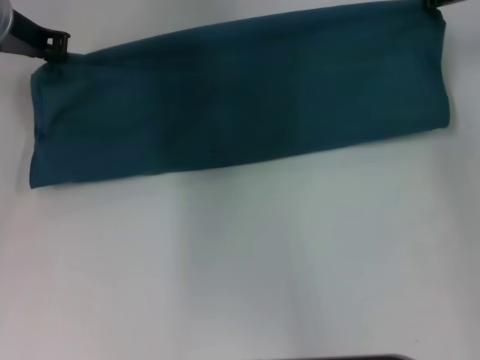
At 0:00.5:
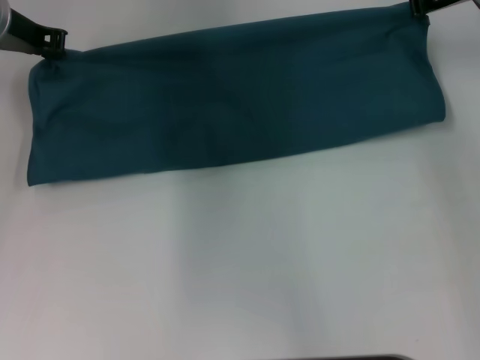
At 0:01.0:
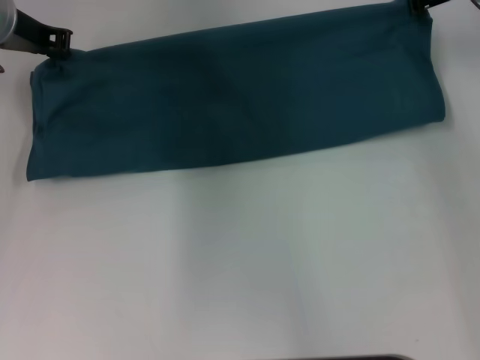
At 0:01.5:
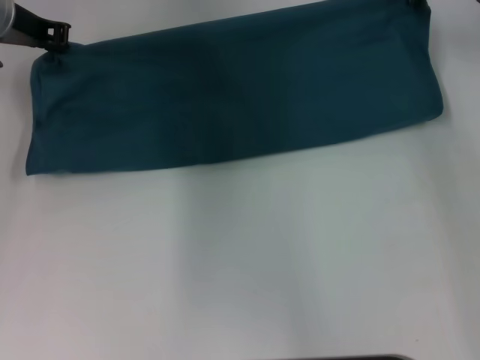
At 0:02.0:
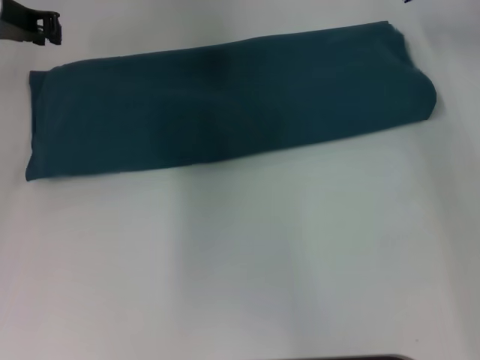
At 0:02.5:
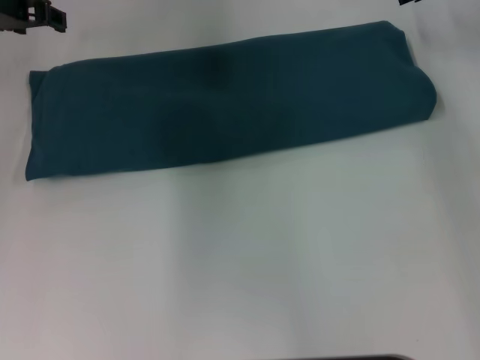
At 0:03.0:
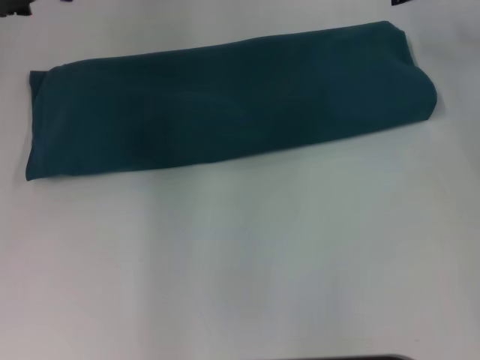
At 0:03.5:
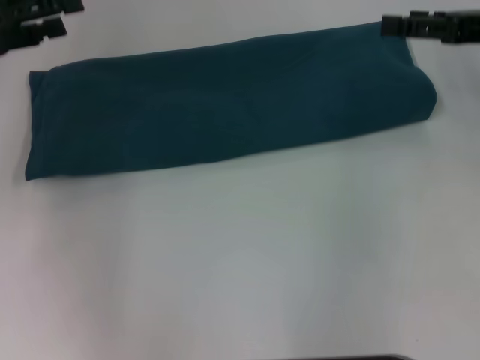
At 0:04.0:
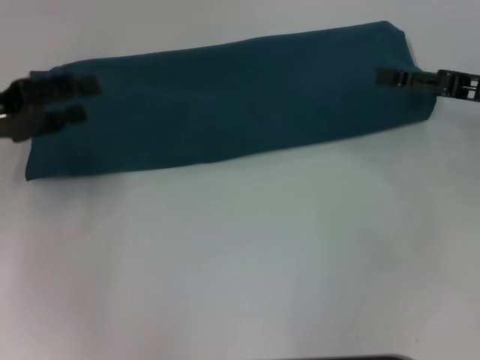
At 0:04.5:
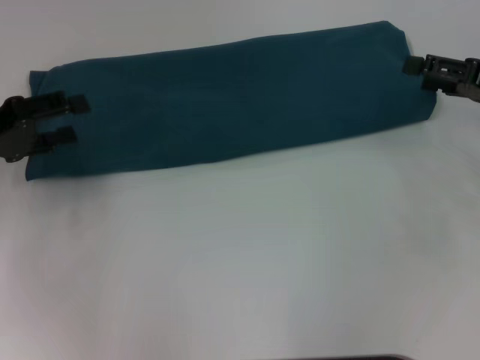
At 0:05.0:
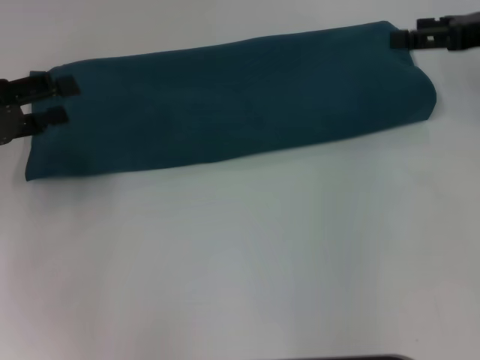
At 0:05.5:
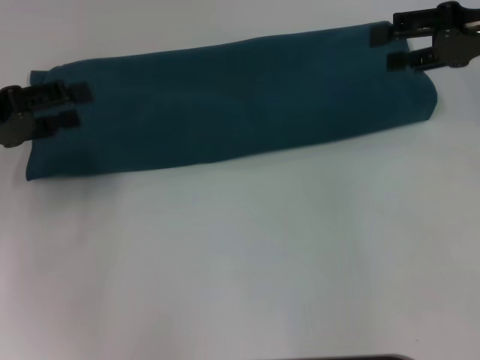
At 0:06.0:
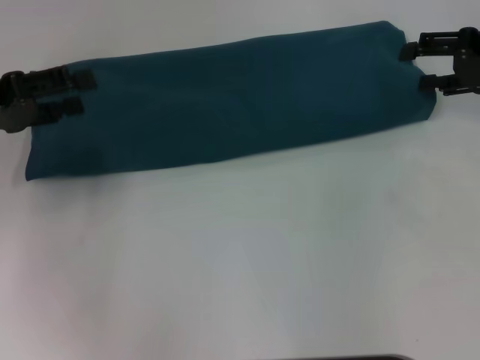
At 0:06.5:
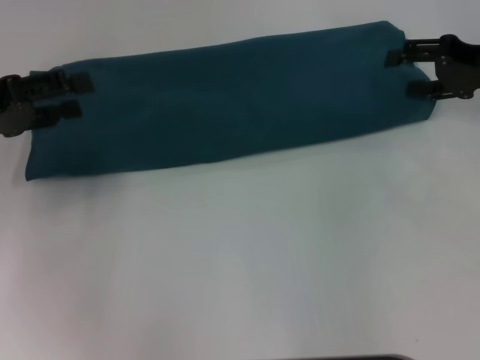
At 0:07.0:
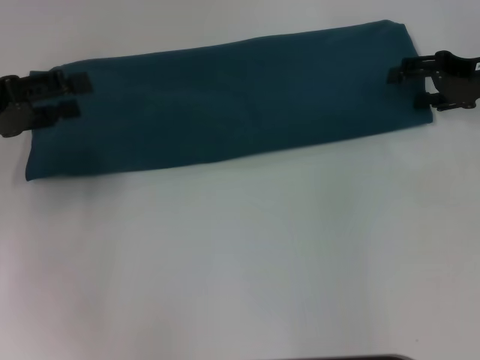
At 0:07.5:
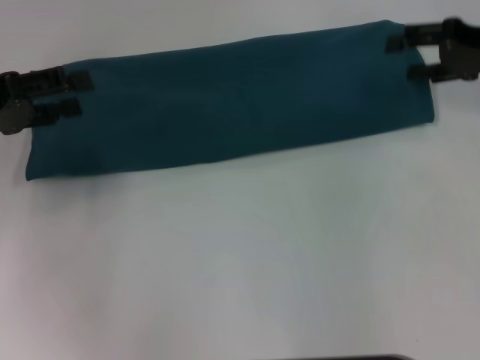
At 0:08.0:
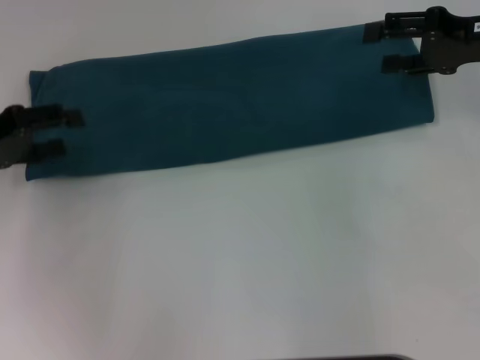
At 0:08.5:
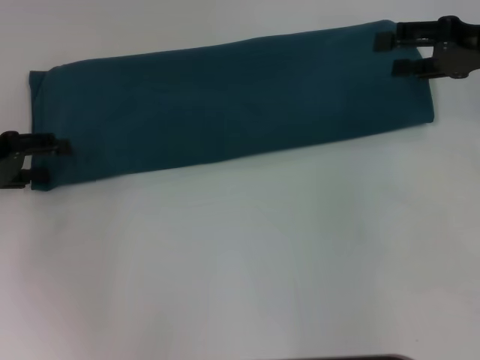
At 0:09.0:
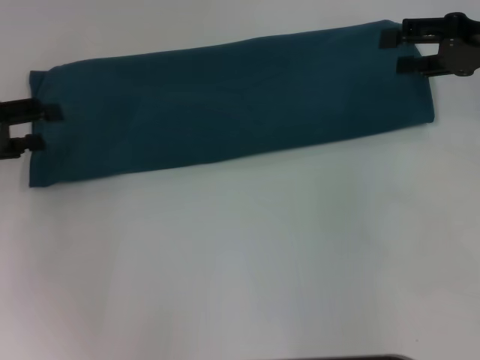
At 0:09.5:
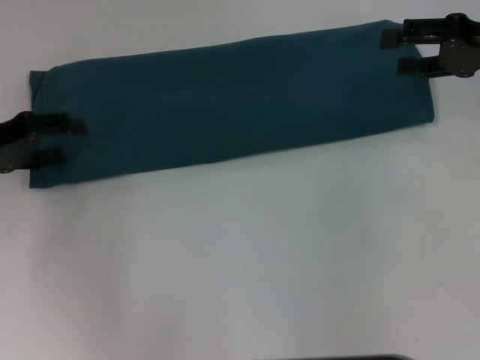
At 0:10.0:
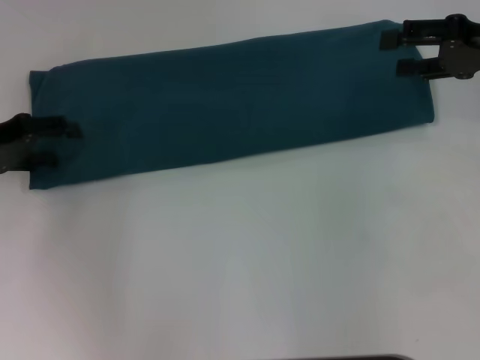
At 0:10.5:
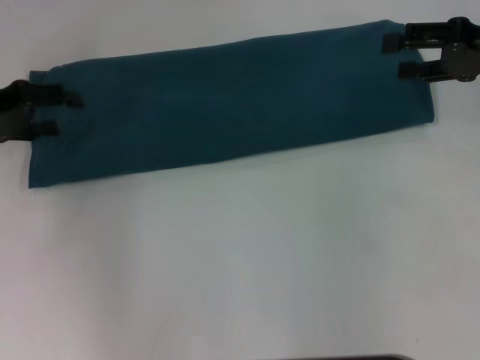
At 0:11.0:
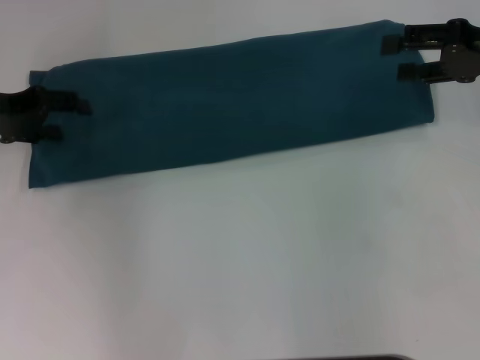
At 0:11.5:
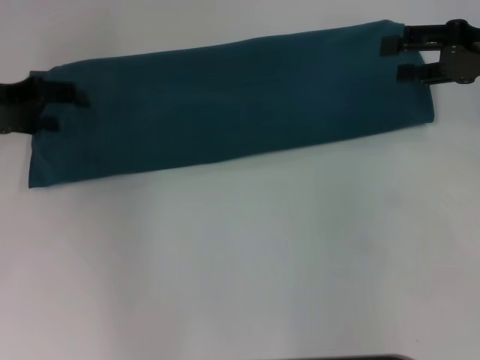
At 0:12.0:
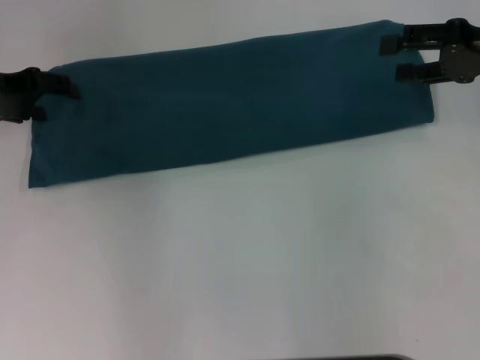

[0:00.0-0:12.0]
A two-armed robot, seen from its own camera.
Step, 0:00.0 to 0:03.0: Fold the clothes to the left.
Step, 0:00.0 to 0:03.0: Fold the clothes to the right.
0:00.0 to 0:02.0: The grippers make only small movements.
0:02.0 to 0:04.0: The right gripper is displaced backward, to the right and downward by some 20 cm, and opens up. The left gripper moves backward, to the left and downward, about 15 cm, and opens.
0:04.0 to 0:06.0: The right gripper moves approximately 5 cm.
0:06.0 to 0:08.0: The grippers make only small movements.
0:08.0 to 0:10.0: The grippers stay close to where they were, moving slightly.
0:10.0 to 0:12.0: The left gripper moves forward, some 5 cm.

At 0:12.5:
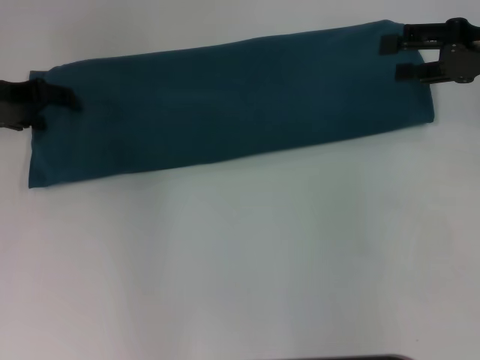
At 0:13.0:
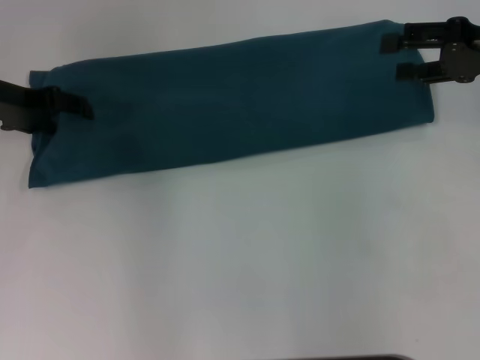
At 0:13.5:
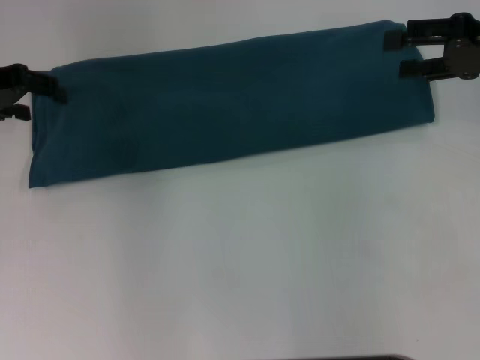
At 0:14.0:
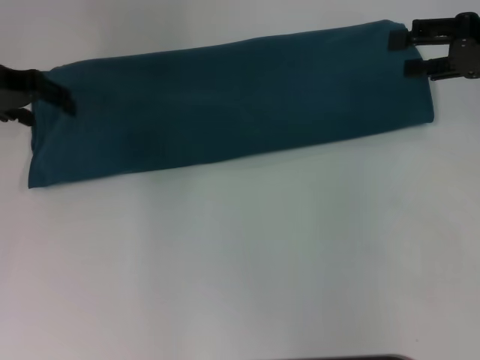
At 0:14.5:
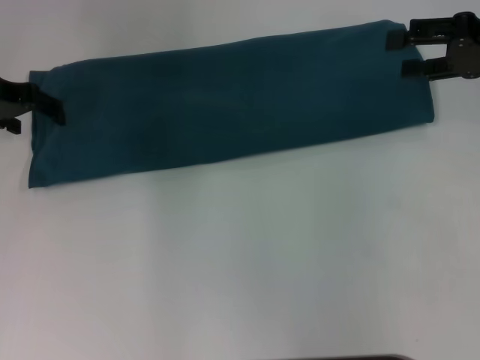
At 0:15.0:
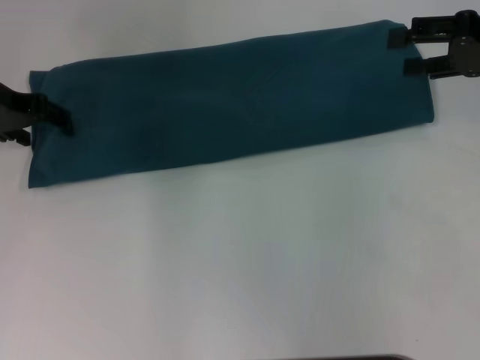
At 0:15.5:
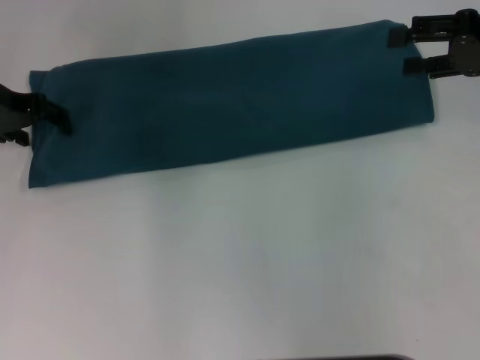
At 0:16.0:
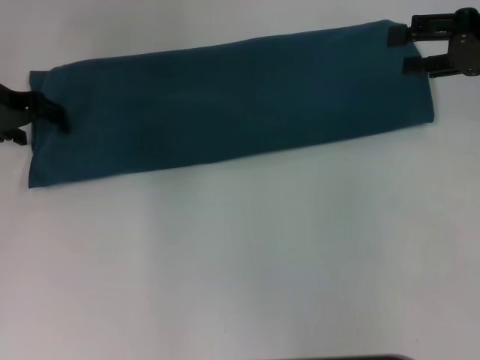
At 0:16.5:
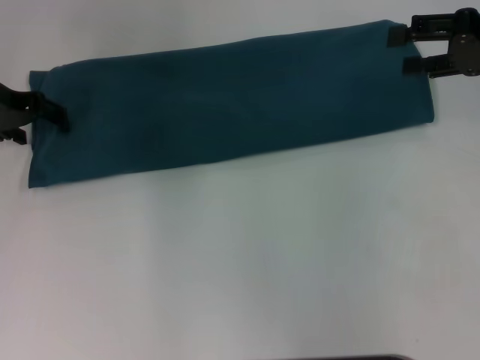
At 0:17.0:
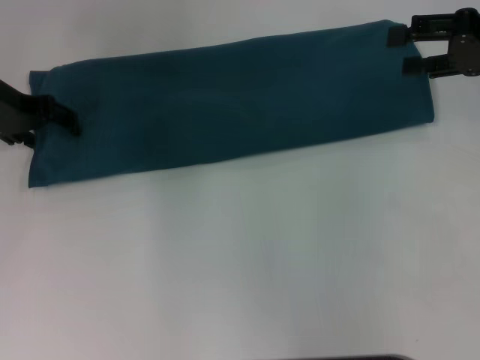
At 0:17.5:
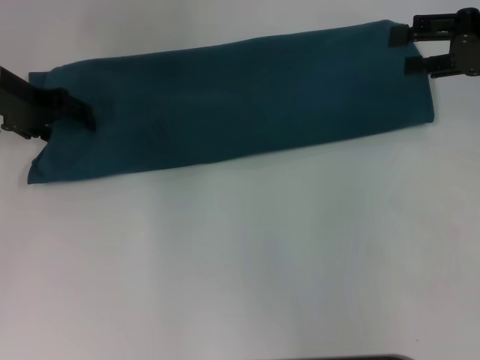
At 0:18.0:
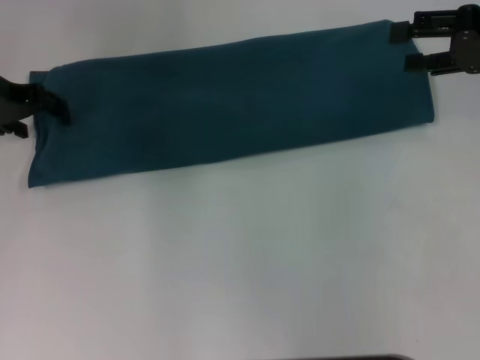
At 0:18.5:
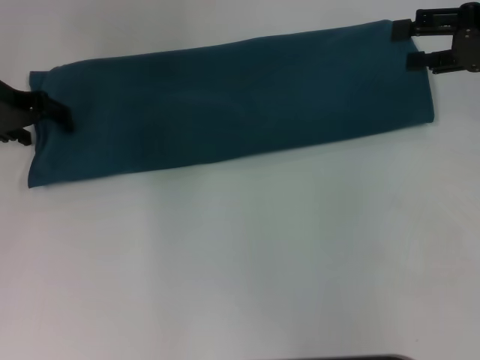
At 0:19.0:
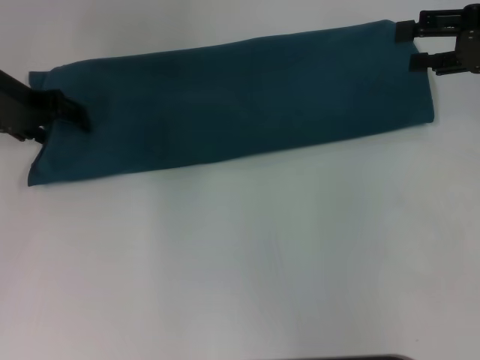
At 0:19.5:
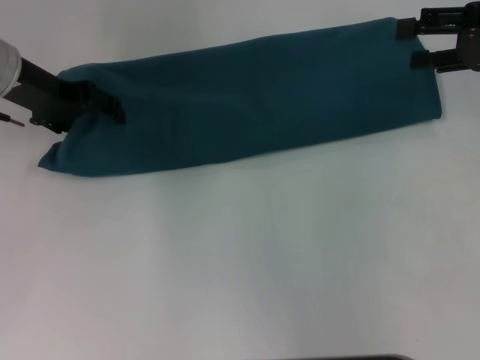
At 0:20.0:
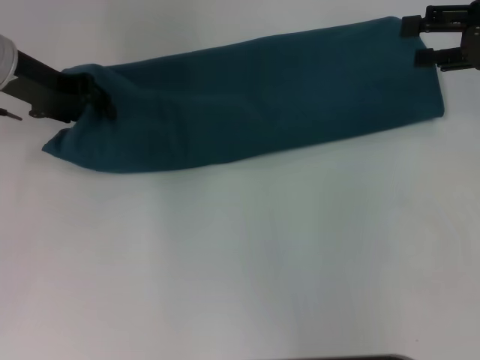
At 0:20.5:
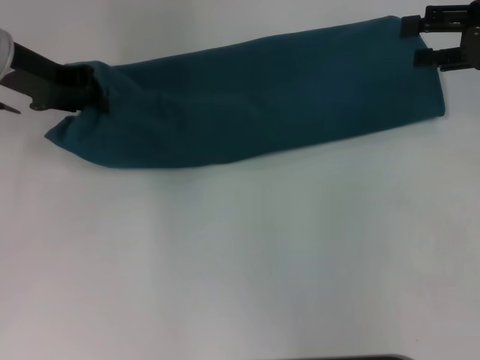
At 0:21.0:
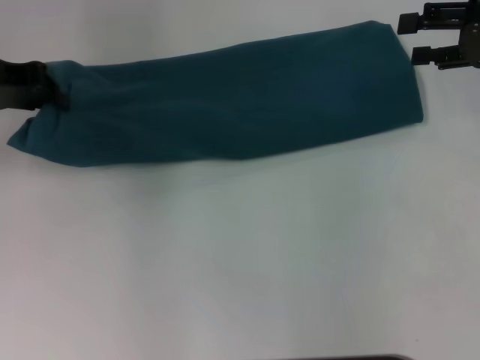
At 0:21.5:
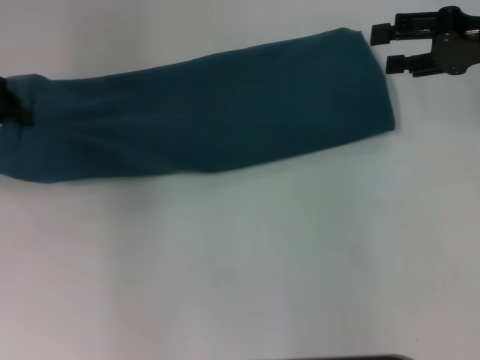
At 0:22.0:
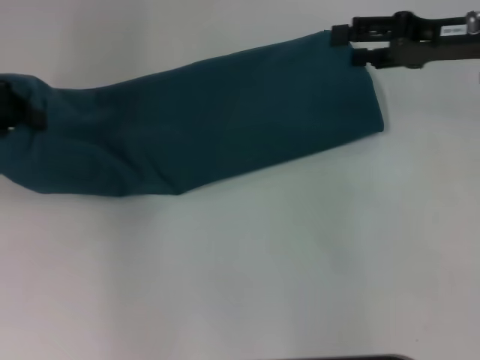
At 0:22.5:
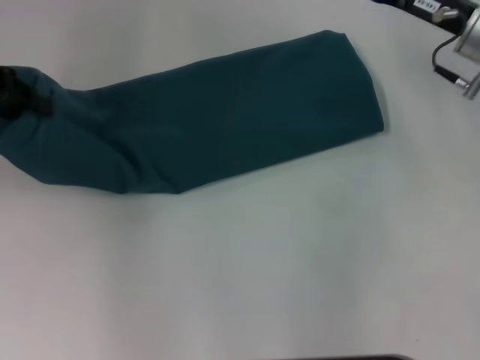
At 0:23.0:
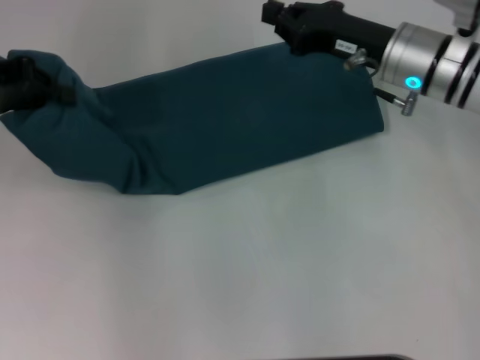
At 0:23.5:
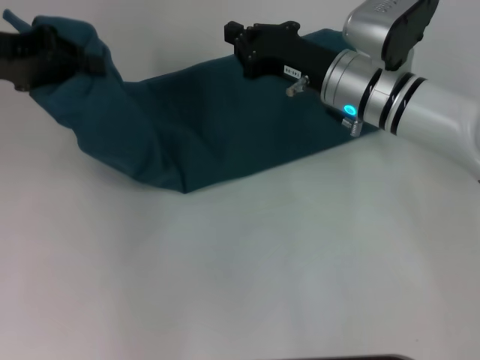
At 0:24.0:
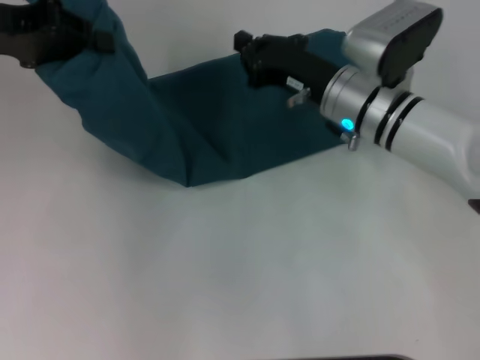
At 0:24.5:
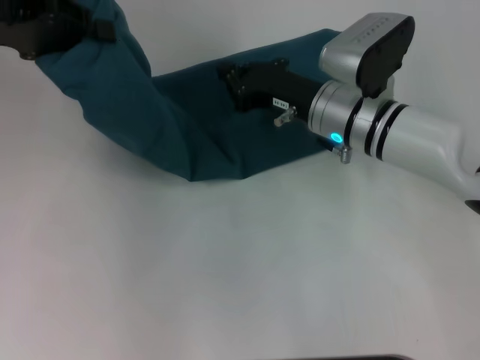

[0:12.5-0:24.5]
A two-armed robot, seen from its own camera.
0:12.5 to 0:18.5: The grippers move only a little.
0:18.5 to 0:20.5: The left gripper closes.
0:20.5 to 0:22.5: The right gripper moves to the left, about 10 cm. Meanwhile the left gripper goes approximately 10 cm to the left and backward.
0:22.5 to 0:24.5: The right gripper shifts approximately 15 cm to the left and downward, and closes its fingers. Meanwhile the left gripper moves some 5 cm.

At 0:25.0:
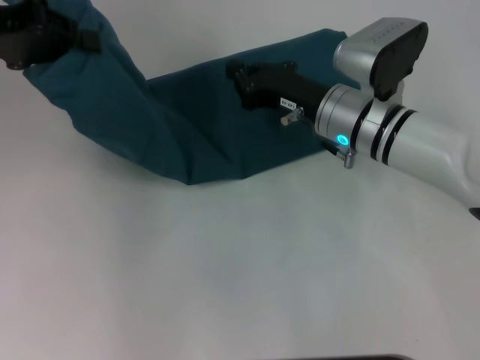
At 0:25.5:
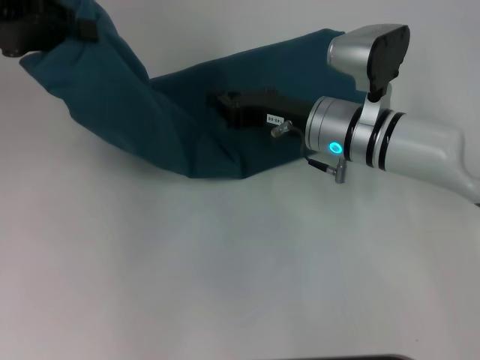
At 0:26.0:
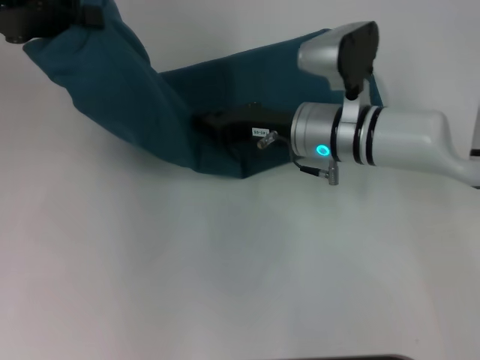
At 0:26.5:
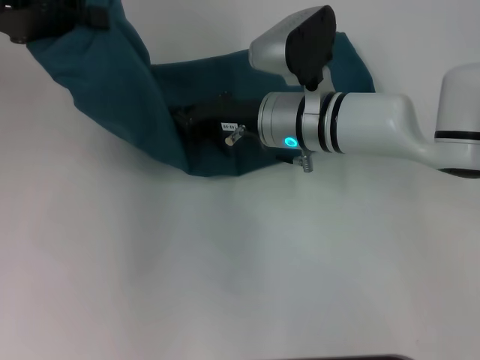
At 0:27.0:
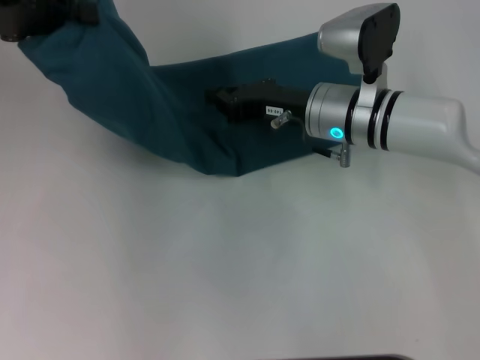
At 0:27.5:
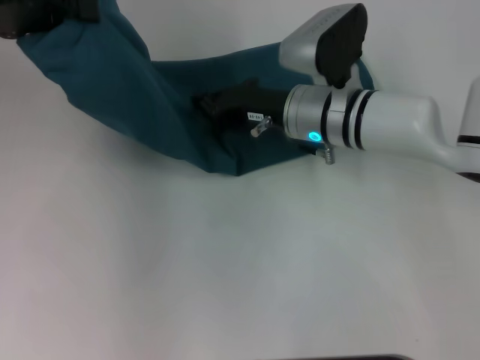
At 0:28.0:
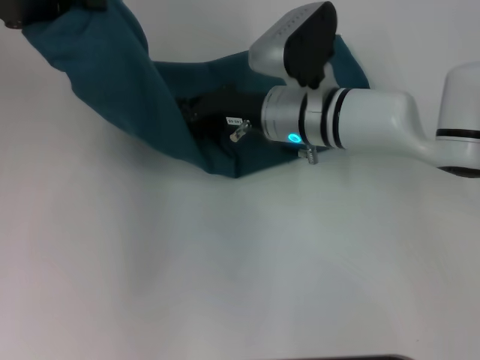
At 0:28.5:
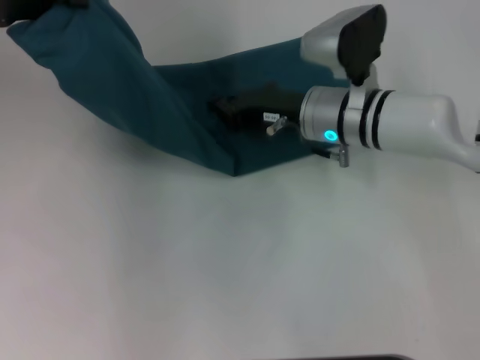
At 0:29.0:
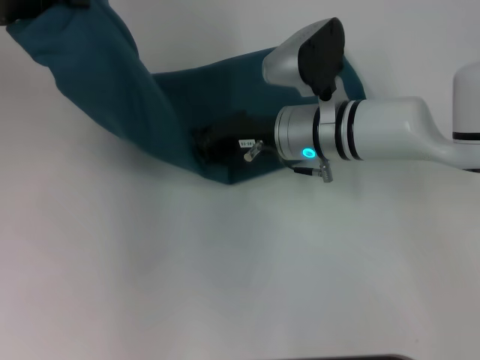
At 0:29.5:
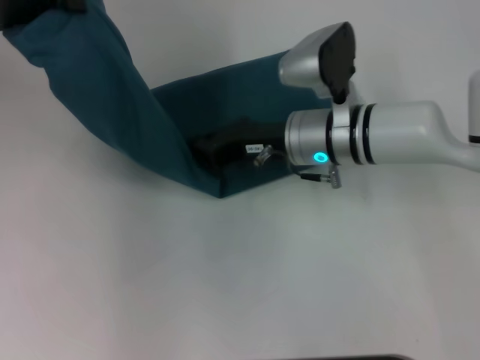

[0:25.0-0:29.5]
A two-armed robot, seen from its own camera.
0:25.0 to 0:27.0: The grippers move only a little.
0:27.0 to 0:29.5: The grippers make only small movements.
